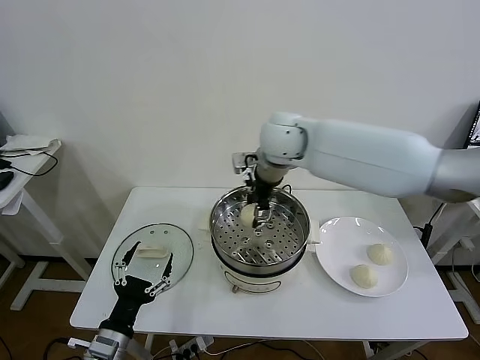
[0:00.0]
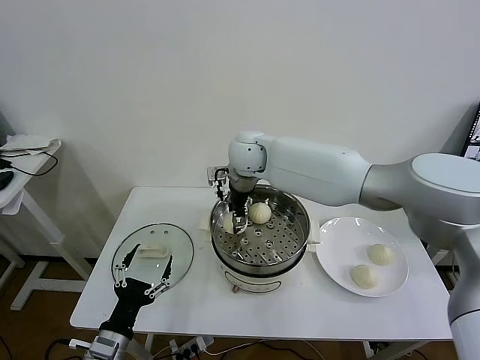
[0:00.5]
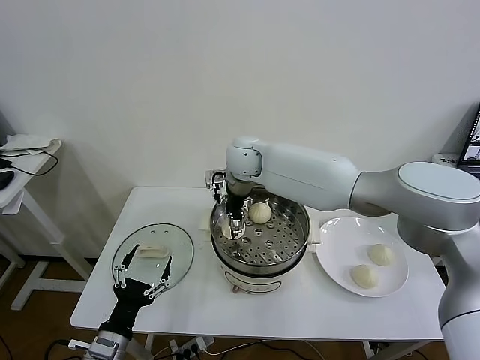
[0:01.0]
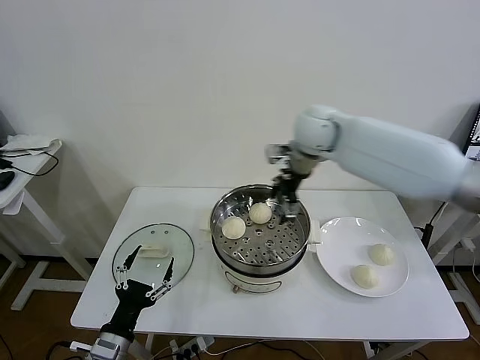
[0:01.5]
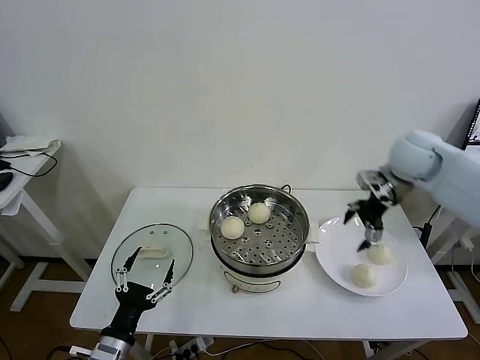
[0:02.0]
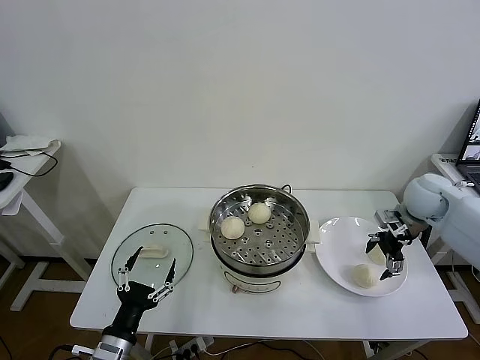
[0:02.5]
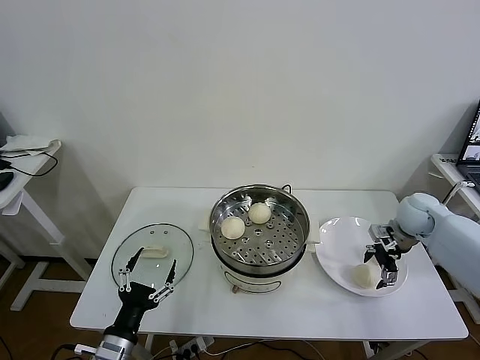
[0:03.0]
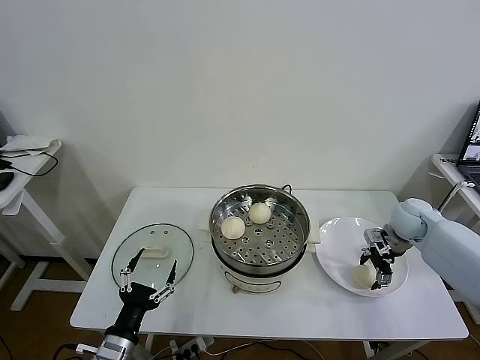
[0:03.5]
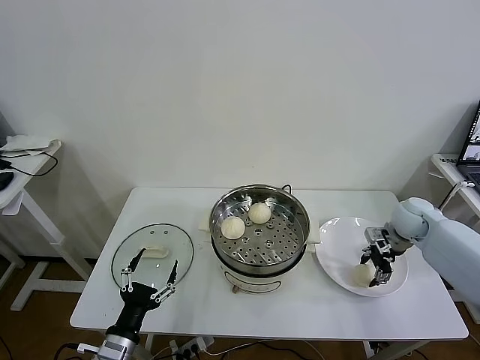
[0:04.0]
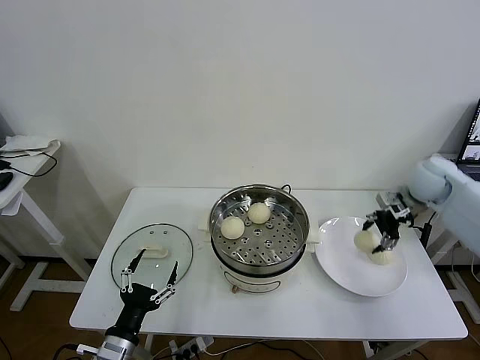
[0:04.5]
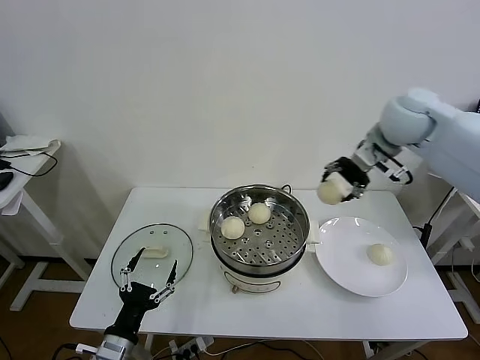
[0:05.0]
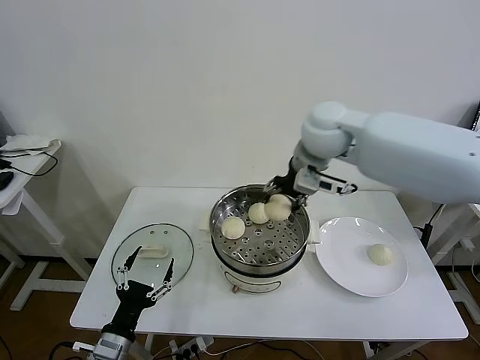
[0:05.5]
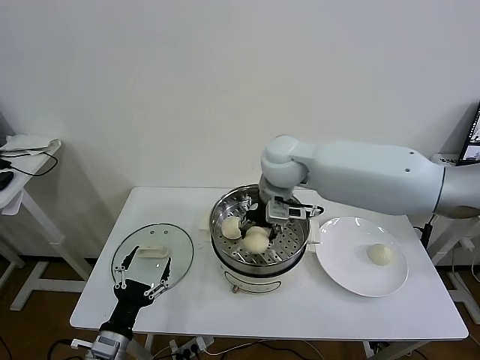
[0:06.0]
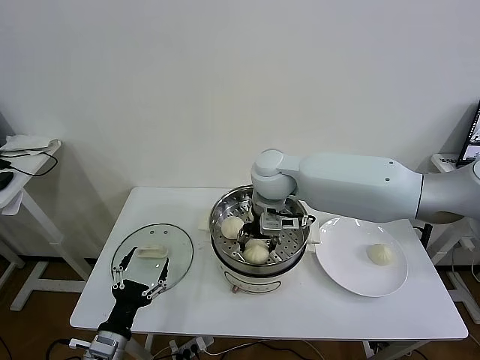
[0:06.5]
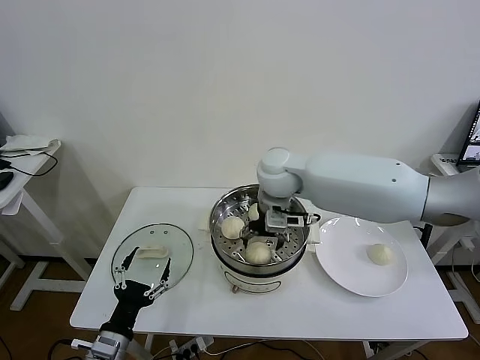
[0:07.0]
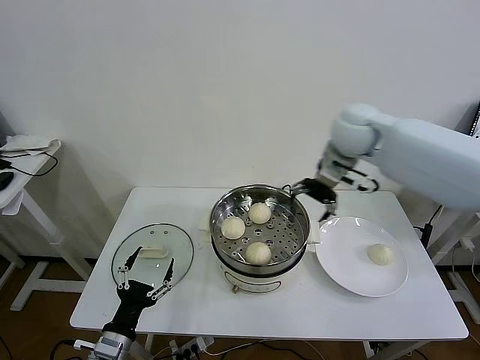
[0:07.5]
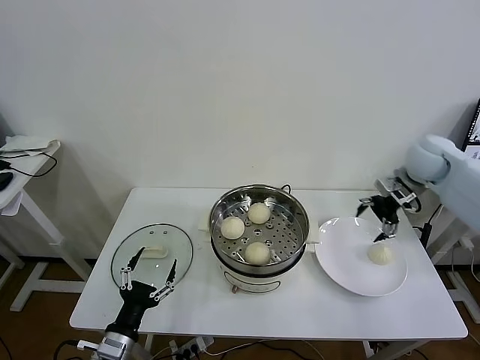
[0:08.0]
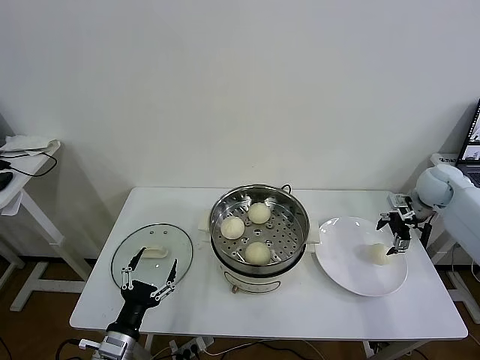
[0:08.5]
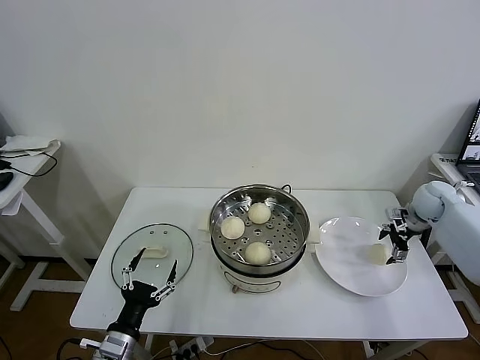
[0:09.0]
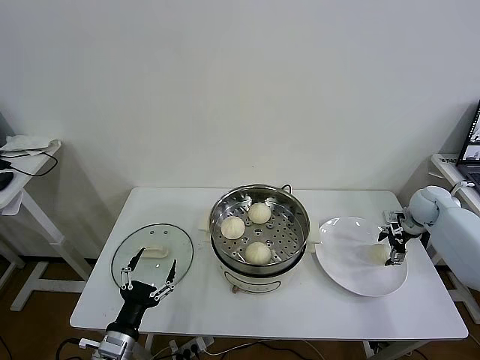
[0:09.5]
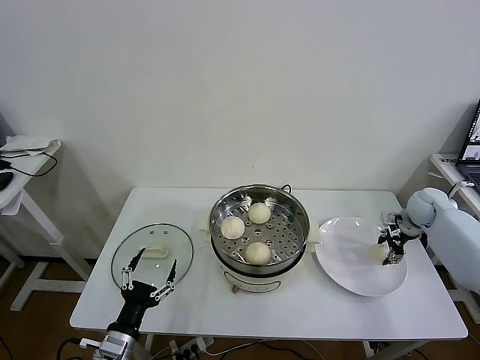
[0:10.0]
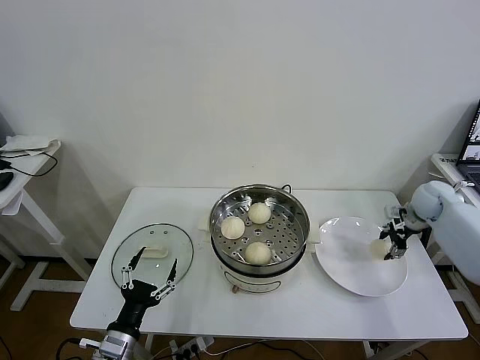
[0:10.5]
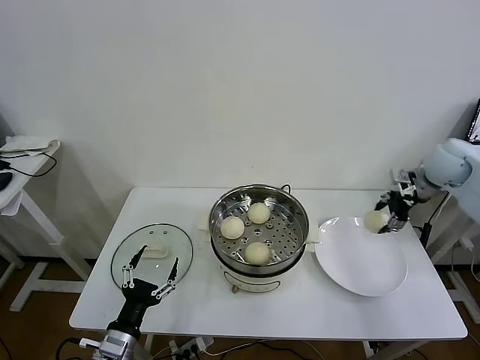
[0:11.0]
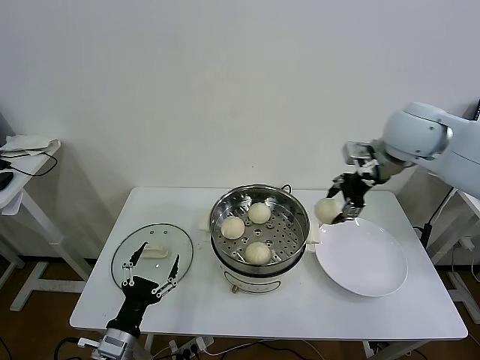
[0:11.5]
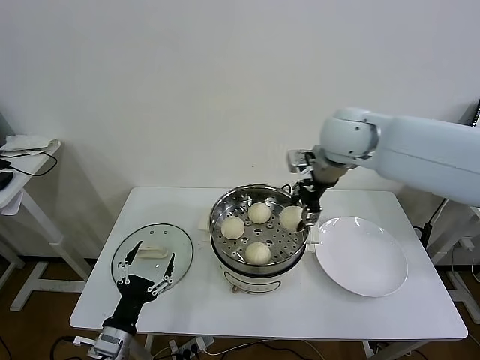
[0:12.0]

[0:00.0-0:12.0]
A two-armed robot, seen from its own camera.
Task of the whole recording: take steamed baozi put them in steamer then cover it.
Step, 0:01.5 to 0:03.5: Grasp the baozi in the plate with right gripper.
Step, 0:04.0 to 0:07.0: Place the baozi on the steamer with right gripper.
Step, 0:07.5 to 0:10.0: Grasp the baozi in the plate with right gripper.
0:00.0 to 0:02.0: The right gripper is displaced to the right by roughly 30 cm, and opens its fingers.
0:02.0 to 0:04.0: The right gripper heads downward, covering some 15 cm, and closes.
0:04.0 to 0:06.0: The right gripper is displaced to the left and upward by approximately 40 cm.
0:06.0 to 0:08.0: The right gripper shifts some 35 cm to the right, and opens.
0:08.0 to 0:10.0: The right gripper shifts some 15 cm downward and to the right, and closes up.
0:10.0 to 0:12.0: The right gripper travels to the left and upward by about 40 cm.

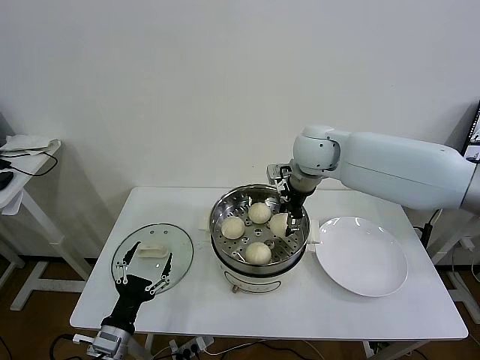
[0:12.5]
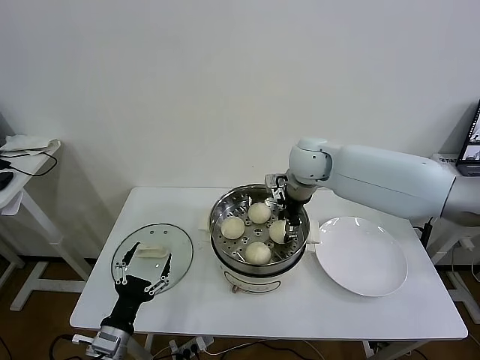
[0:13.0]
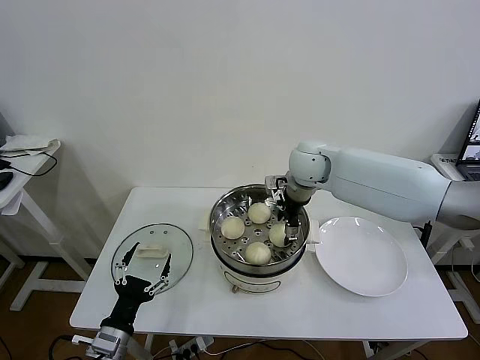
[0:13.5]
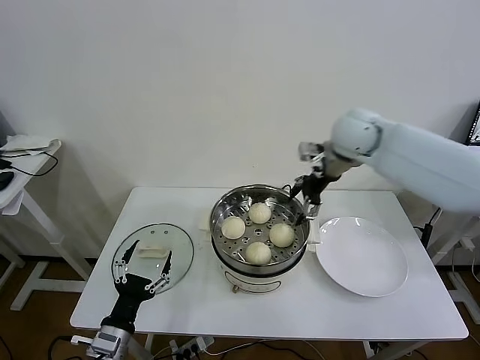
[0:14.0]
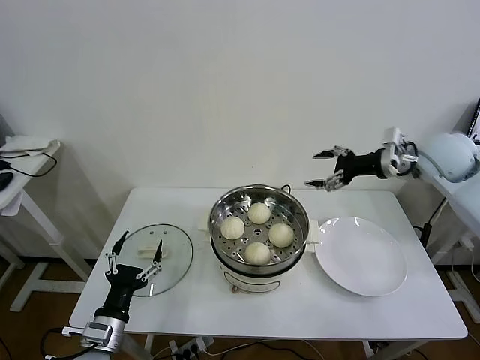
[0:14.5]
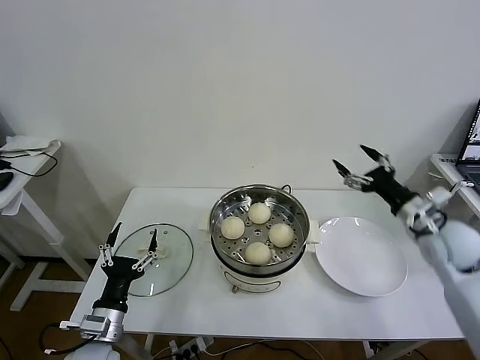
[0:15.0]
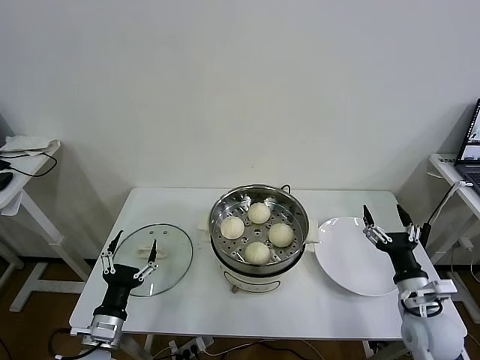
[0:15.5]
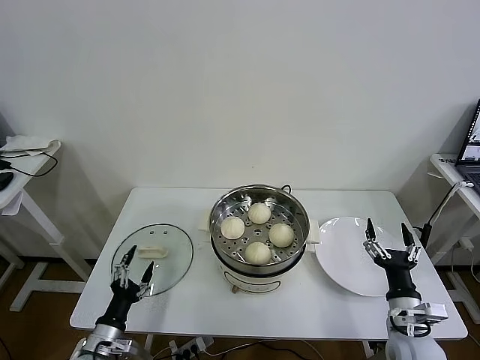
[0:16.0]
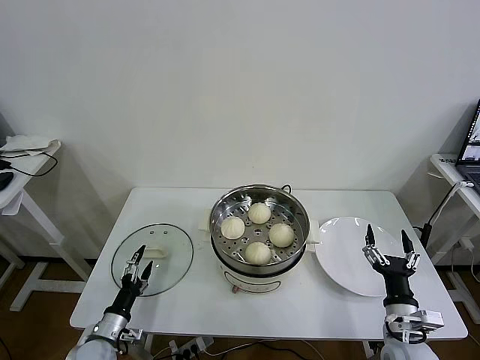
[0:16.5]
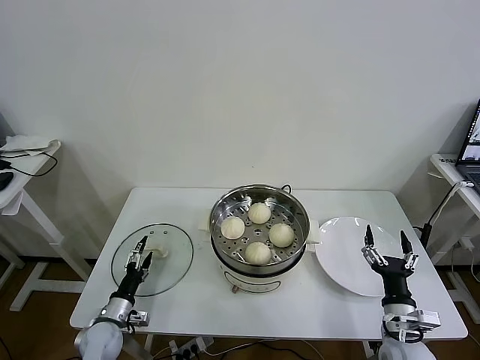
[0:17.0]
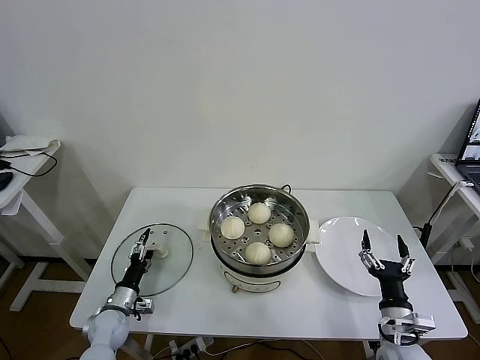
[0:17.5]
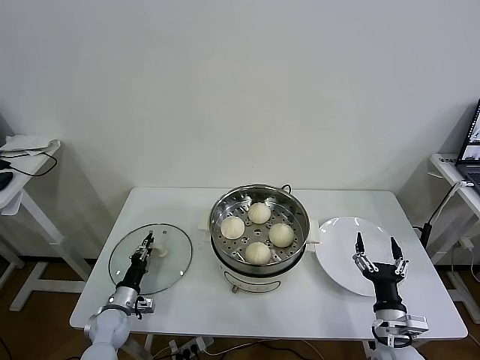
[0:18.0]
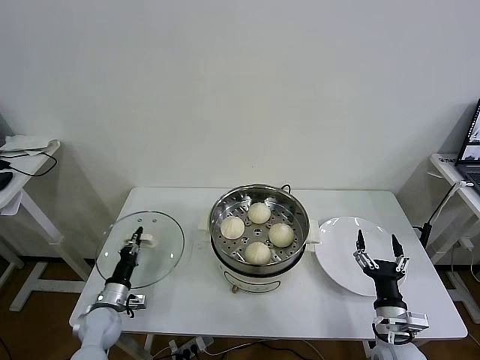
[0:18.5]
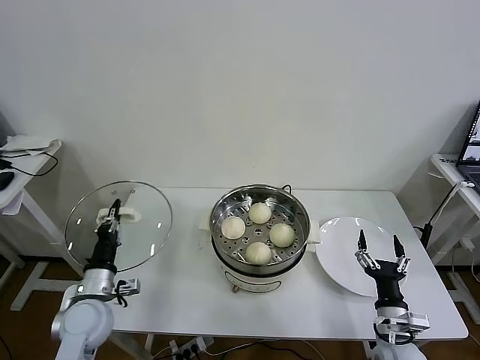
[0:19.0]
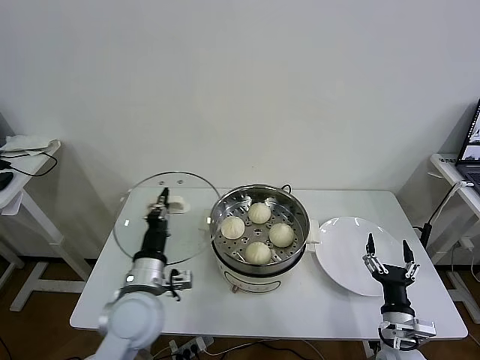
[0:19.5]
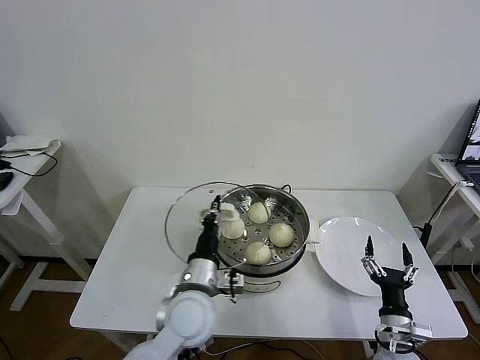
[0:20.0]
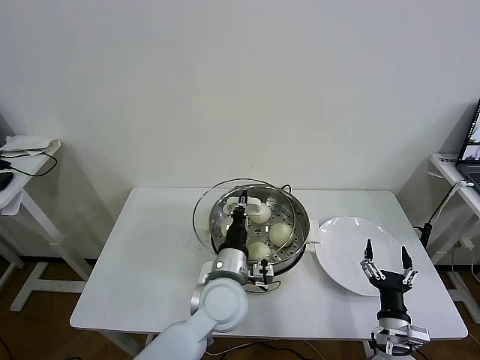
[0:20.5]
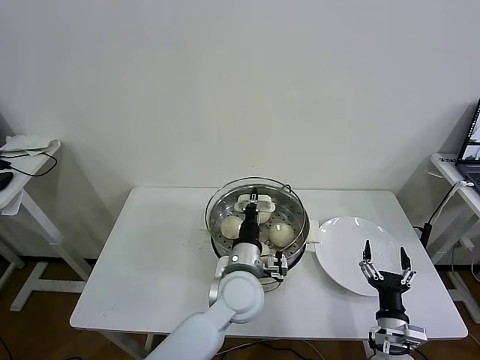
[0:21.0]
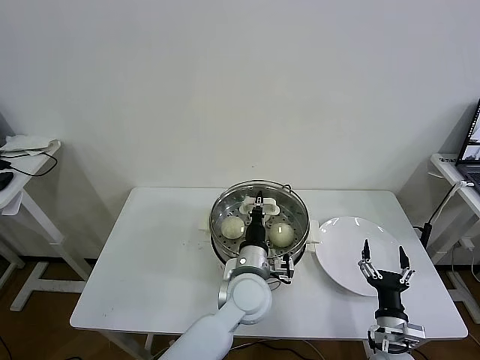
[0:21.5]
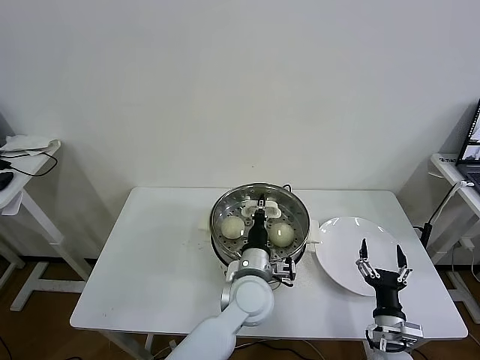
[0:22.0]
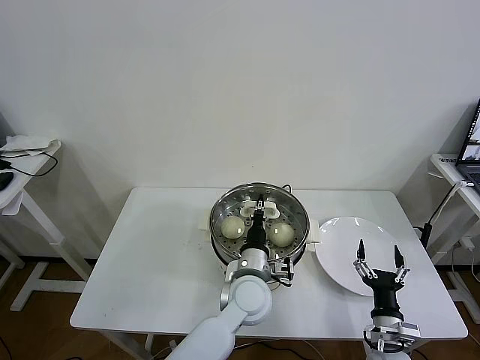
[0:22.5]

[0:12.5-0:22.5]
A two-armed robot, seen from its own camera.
Task of the whole recording: take steamed baozi put them in steamer then cover it.
Step, 0:14.0 to 0:18.0: Grasp the pot lid with left gripper.
0:12.5 to 0:14.5: The right gripper heads to the right, covering some 25 cm, and opens its fingers.
0:14.5 to 0:16.5: The left gripper travels downward and to the left by approximately 15 cm, while the right gripper travels downward and backward by about 40 cm.
0:16.5 to 0:18.5: The left gripper goes some 10 cm forward, and closes its fingers.
0:18.5 to 0:20.5: The left gripper goes roughly 35 cm to the right and upward.
0:20.5 to 0:22.5: The left gripper shifts some 5 cm to the right.

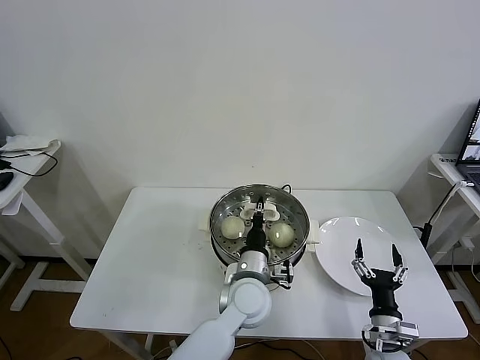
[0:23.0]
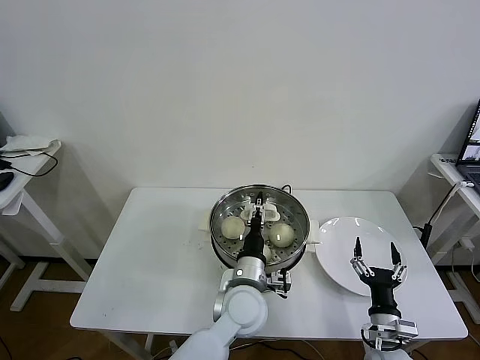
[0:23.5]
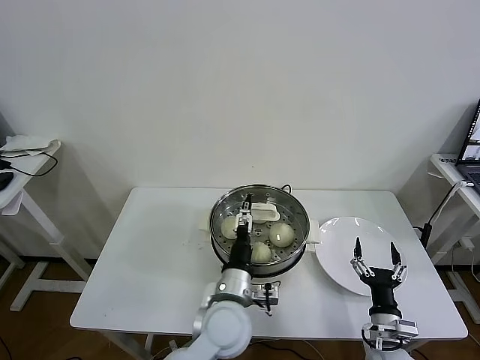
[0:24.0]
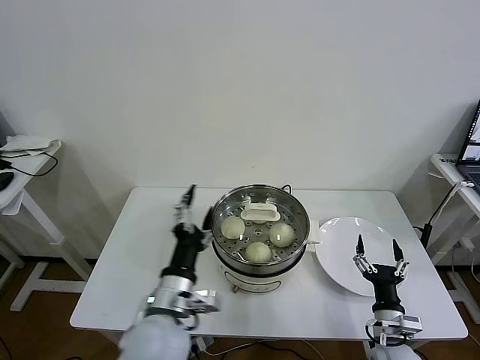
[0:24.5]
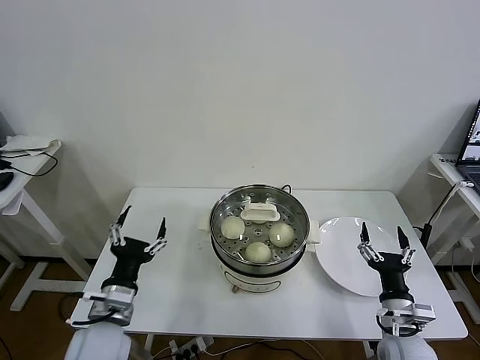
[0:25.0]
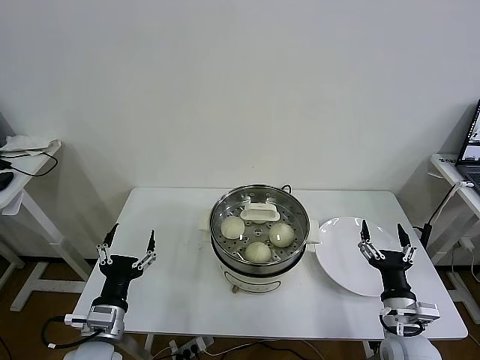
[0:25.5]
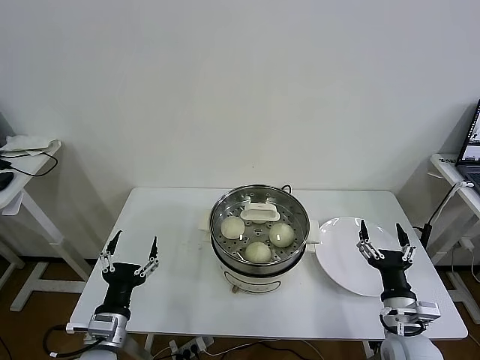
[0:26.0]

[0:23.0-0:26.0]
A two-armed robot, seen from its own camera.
Task of the whole recording: take steamed baozi put them in steamer then cover it.
Step, 0:23.0 to 0:26.0: Place the pot lid on the steamer with left gripper.
0:23.0 to 0:24.5: The left gripper shifts approximately 15 cm to the left, backward and upward, and opens up.
0:24.5 to 0:26.0: The left gripper moves to the left and downward, some 15 cm, while the right gripper is displaced upward by roughly 5 cm.
